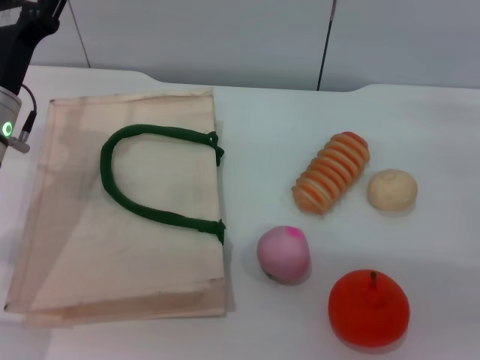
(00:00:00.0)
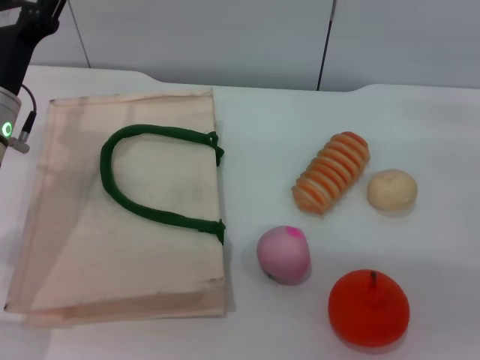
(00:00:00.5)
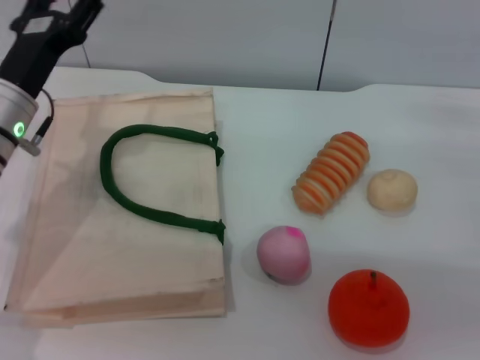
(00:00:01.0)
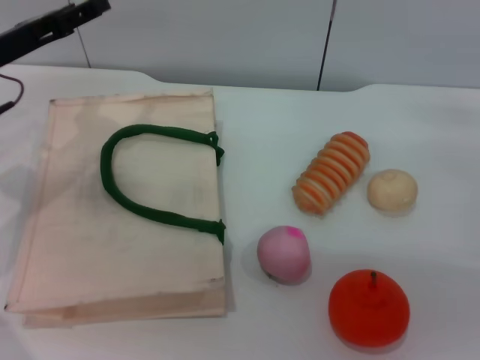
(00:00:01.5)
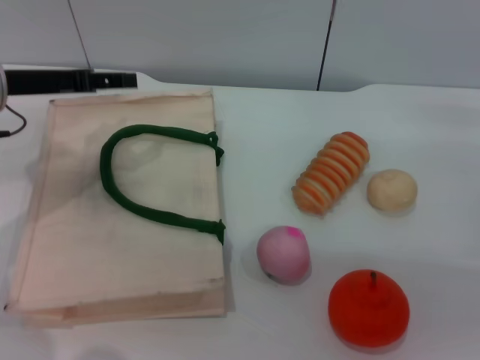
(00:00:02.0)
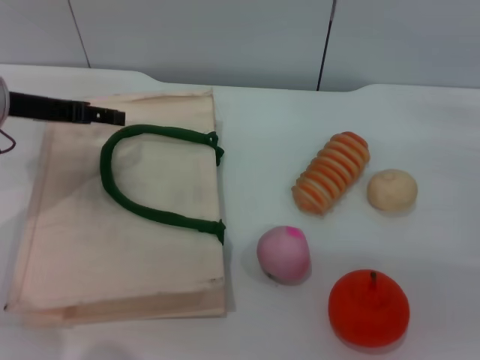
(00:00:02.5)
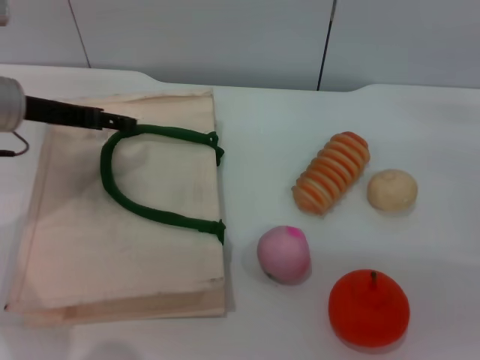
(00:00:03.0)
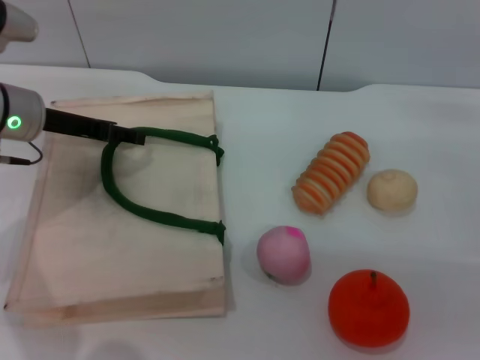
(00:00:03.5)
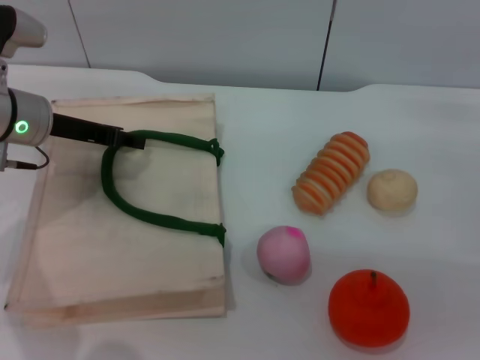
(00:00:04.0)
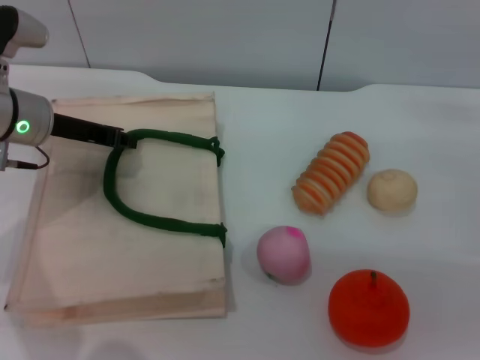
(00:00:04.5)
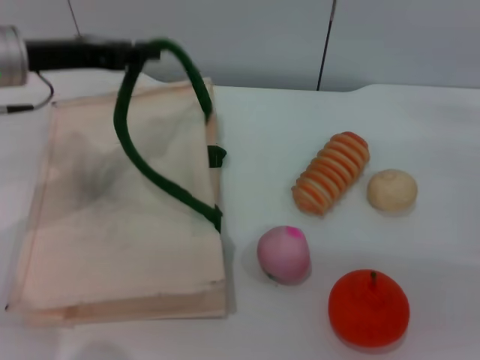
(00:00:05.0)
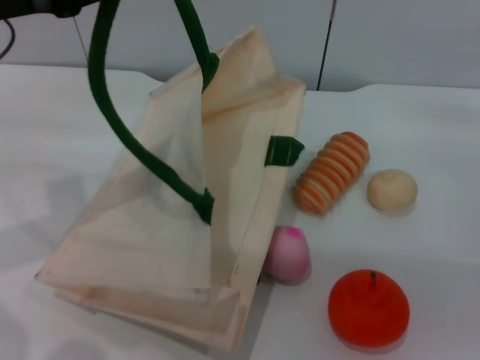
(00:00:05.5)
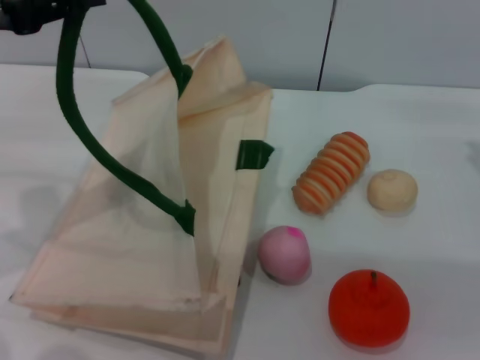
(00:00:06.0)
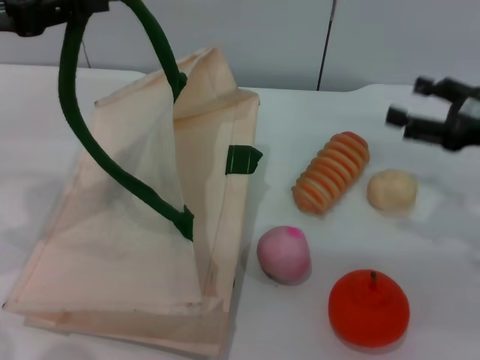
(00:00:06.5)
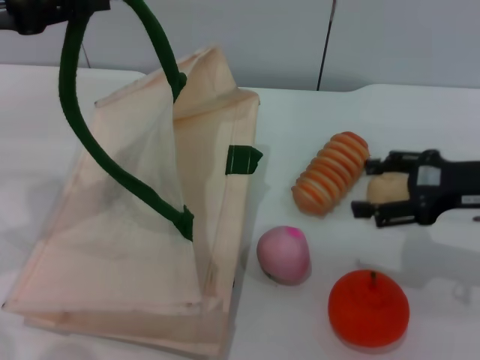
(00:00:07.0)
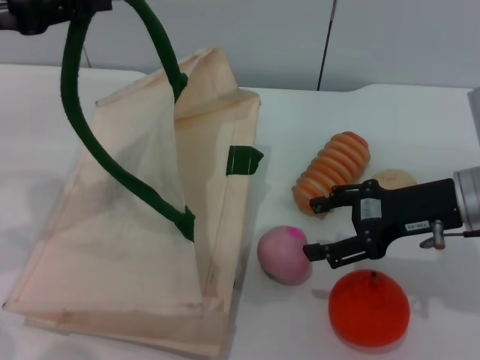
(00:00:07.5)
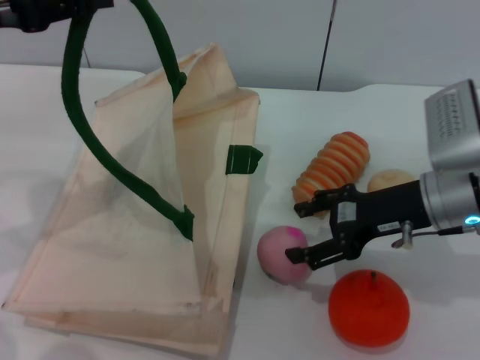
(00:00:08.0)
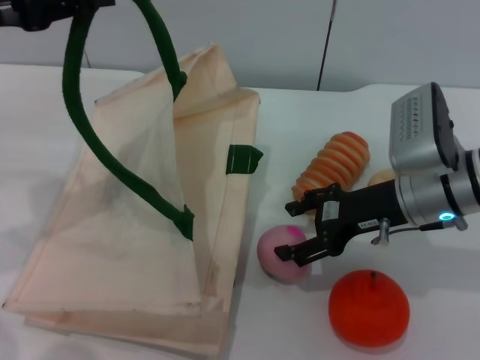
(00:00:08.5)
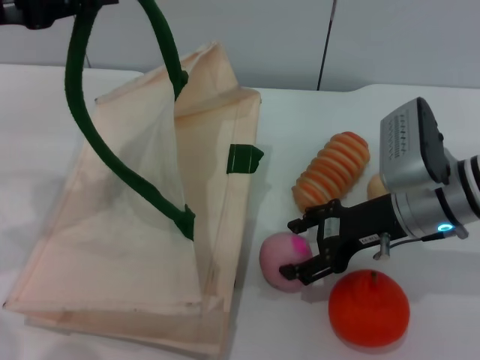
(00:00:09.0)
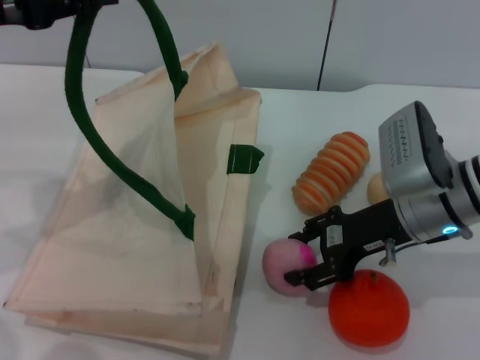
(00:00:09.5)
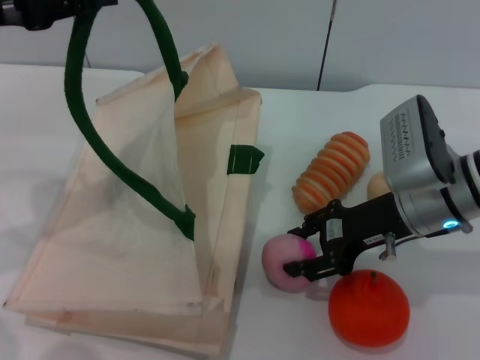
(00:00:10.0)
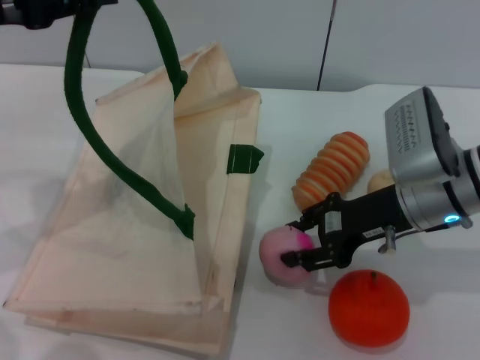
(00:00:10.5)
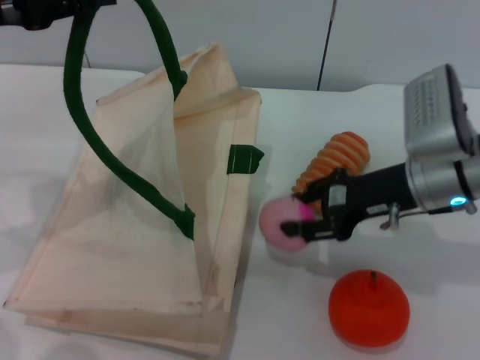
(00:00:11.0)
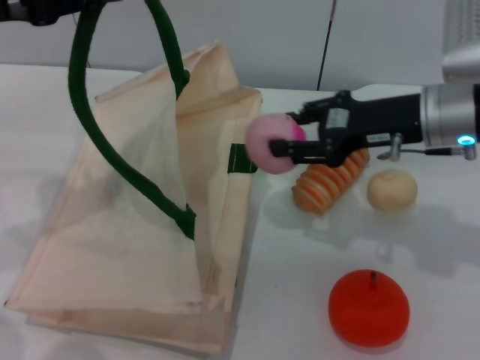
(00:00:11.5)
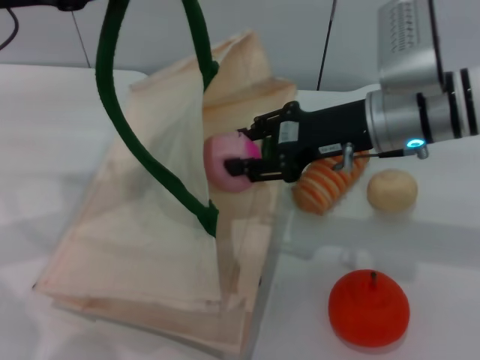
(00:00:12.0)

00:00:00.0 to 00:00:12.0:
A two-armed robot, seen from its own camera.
Task of the whole recording: pick up the peach from the table and place it in the white handbag.
Step, 00:00:00.0 to 00:00:05.5: Lift the woven bag with the left gripper to open it.
Step, 00:00:06.0 to 00:00:11.0: Pick up the peach with the right gripper.
00:00:00.0 to 00:00:02.0: The left gripper moves upward, approximately 5 cm.
00:00:02.0 to 00:00:04.0: The left gripper ends up roughly 5 cm from where it was.
00:00:04.0 to 00:00:06.0: The left gripper moves upward, backward and to the left, approximately 15 cm, and closes up.
00:00:06.0 to 00:00:08.0: The right gripper moves to the left, roughly 10 cm.
00:00:08.0 to 00:00:10.0: The right gripper closes.
00:00:10.0 to 00:00:12.0: The right gripper goes approximately 5 cm upward.

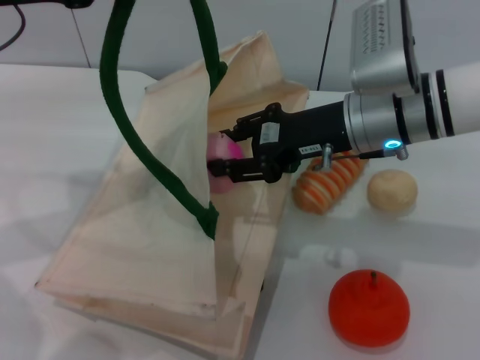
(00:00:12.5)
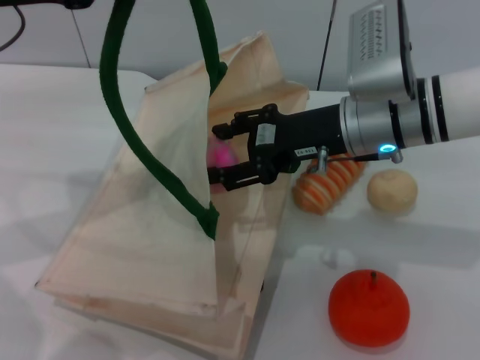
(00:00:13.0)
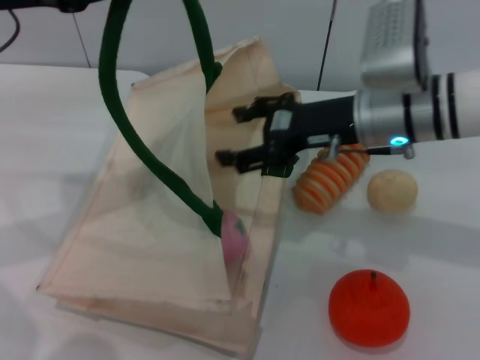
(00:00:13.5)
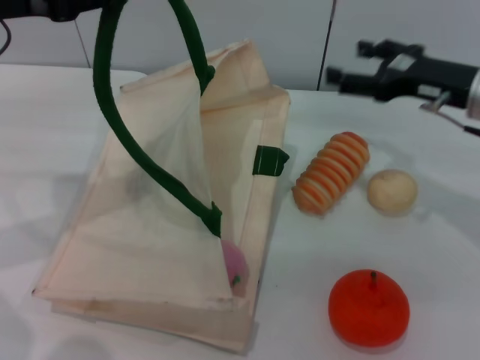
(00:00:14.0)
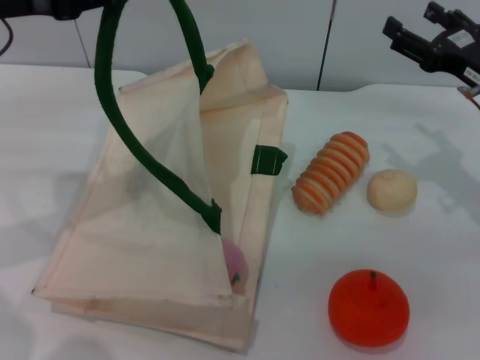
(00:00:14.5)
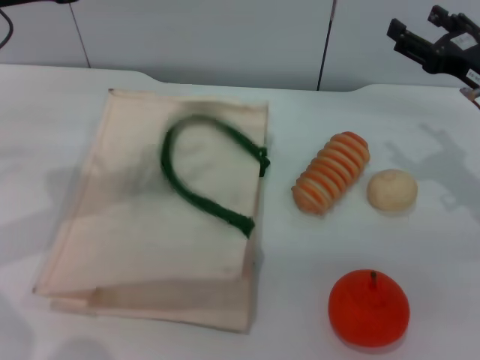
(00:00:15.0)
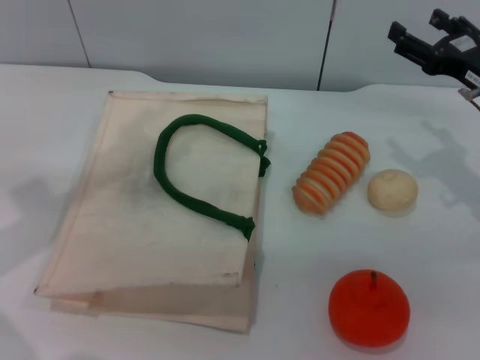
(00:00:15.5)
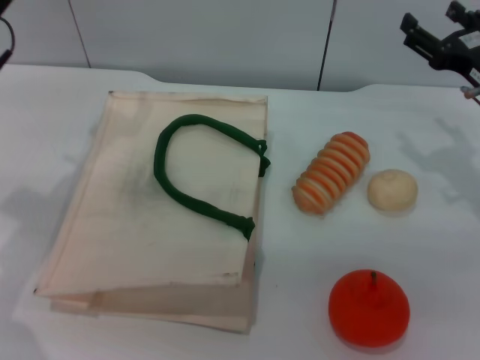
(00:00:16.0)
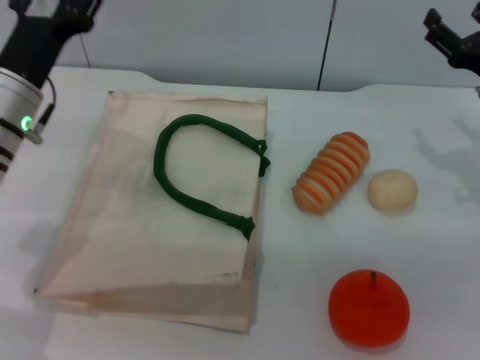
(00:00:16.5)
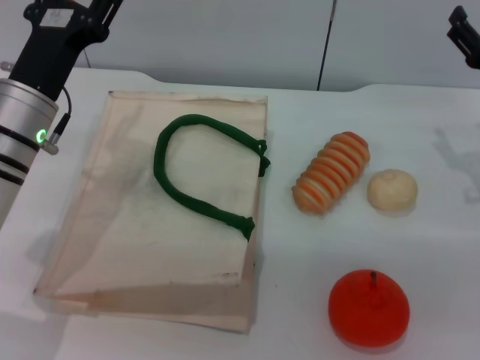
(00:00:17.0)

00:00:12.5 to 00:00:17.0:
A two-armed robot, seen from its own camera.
Task of the whole recording: pick up the peach from the table and place it in the white handbag.
Step, 00:00:14.0 to 00:00:15.0: Lower the woven bag with the left gripper to close it.
00:00:12.5 to 00:00:14.5: The right gripper moves to the right, roughly 15 cm, and opens up.
00:00:14.5 to 00:00:17.0: The left gripper heads downward and to the right, covering about 15 cm, and opens up.
